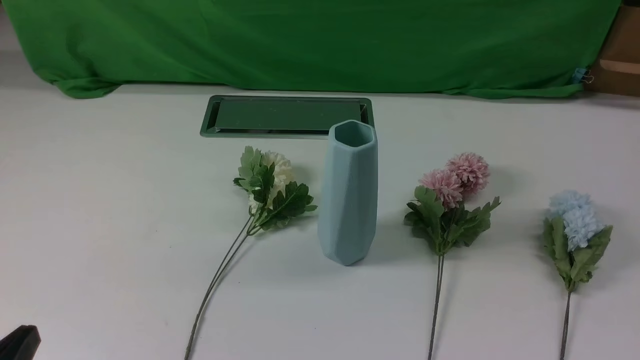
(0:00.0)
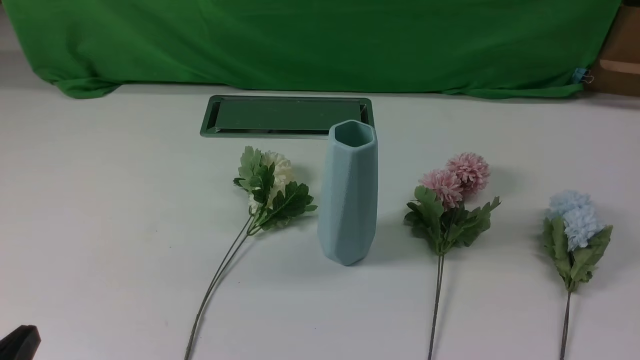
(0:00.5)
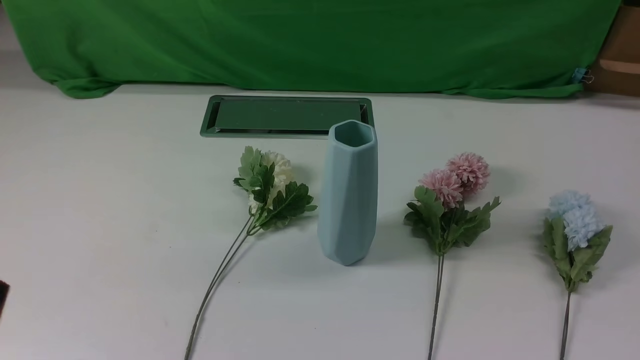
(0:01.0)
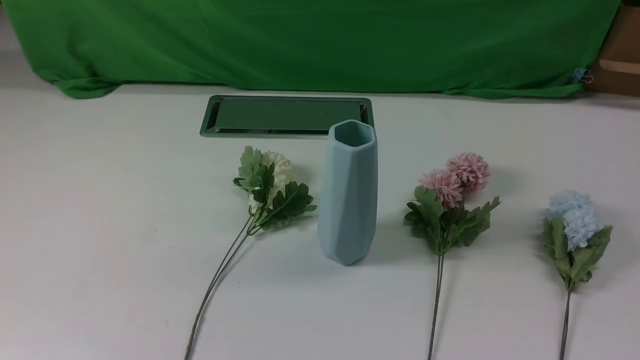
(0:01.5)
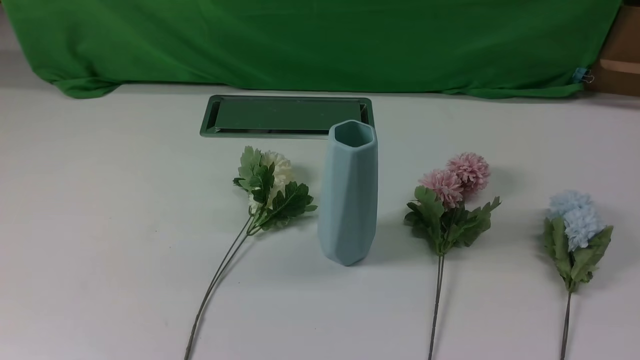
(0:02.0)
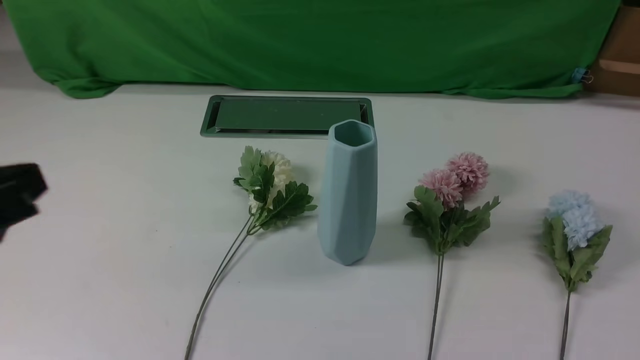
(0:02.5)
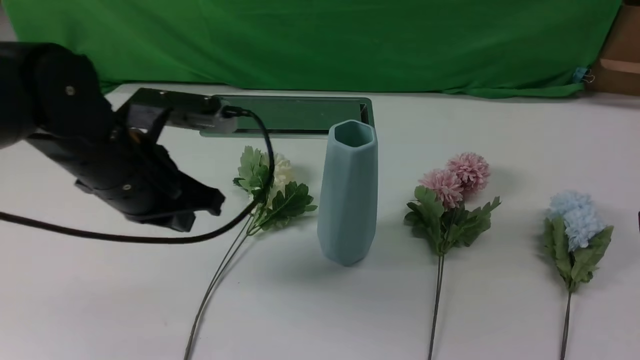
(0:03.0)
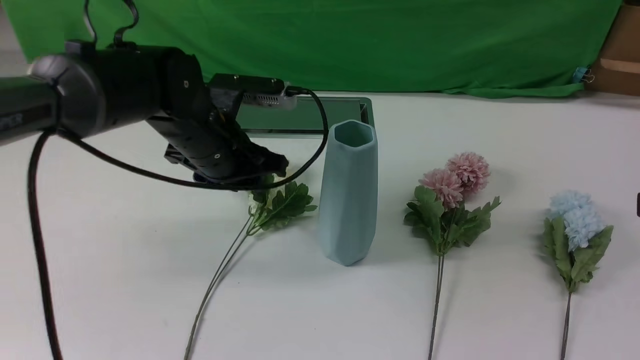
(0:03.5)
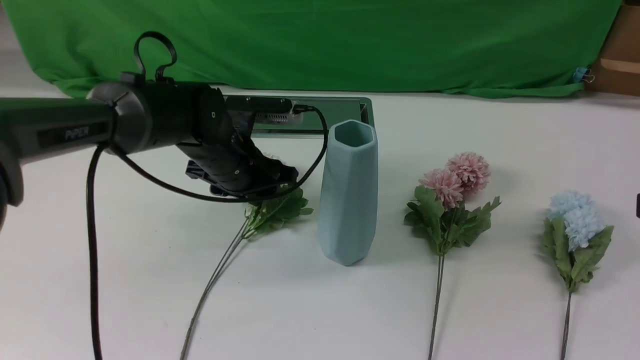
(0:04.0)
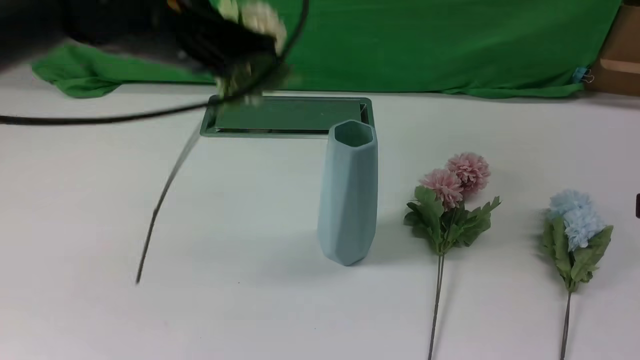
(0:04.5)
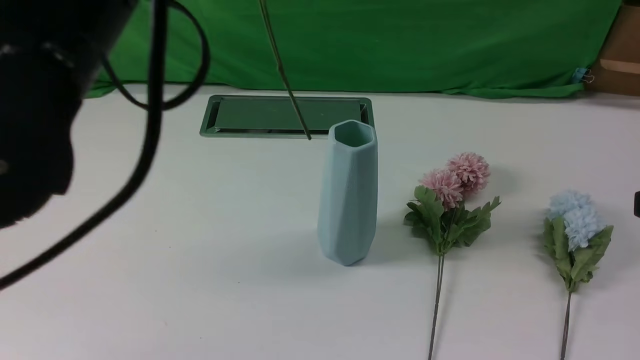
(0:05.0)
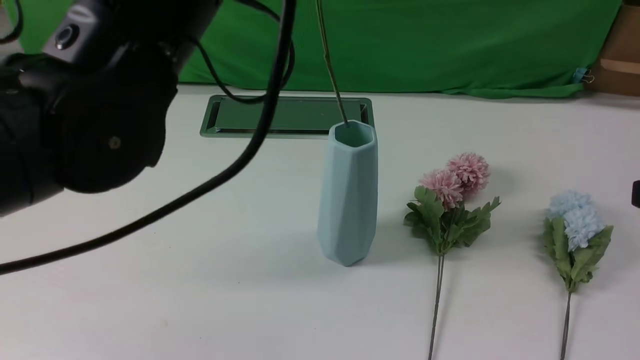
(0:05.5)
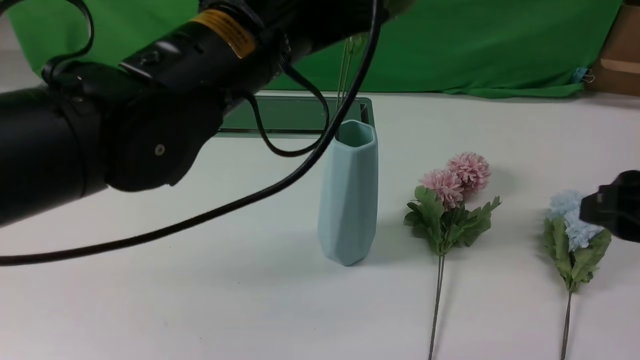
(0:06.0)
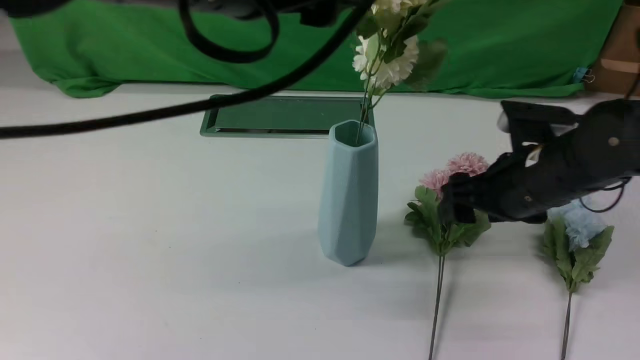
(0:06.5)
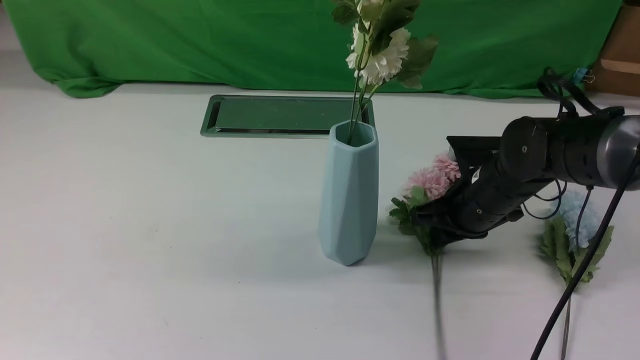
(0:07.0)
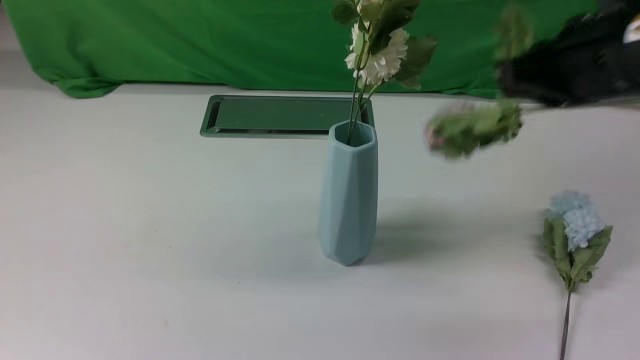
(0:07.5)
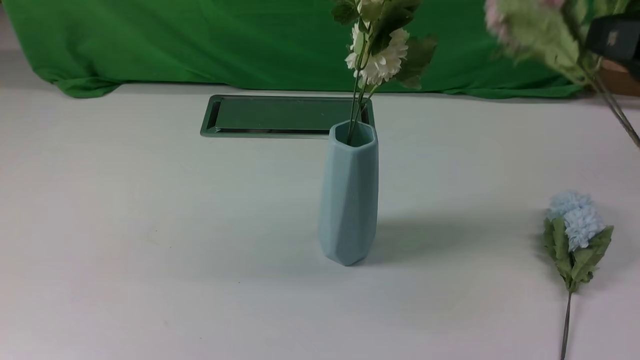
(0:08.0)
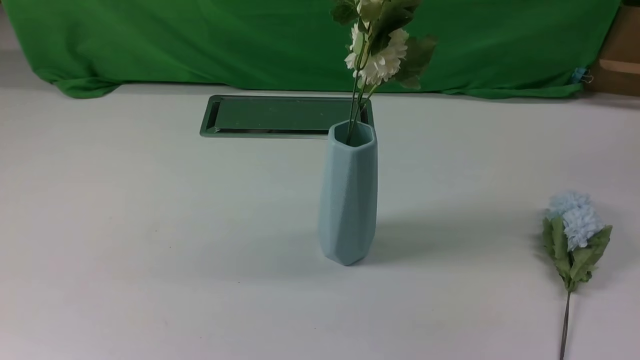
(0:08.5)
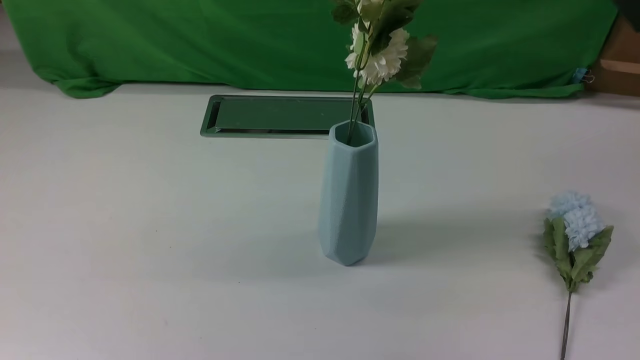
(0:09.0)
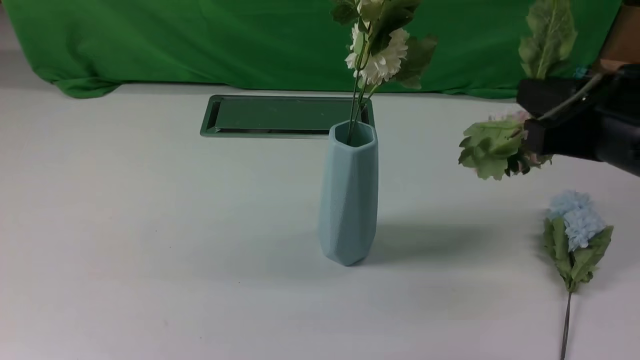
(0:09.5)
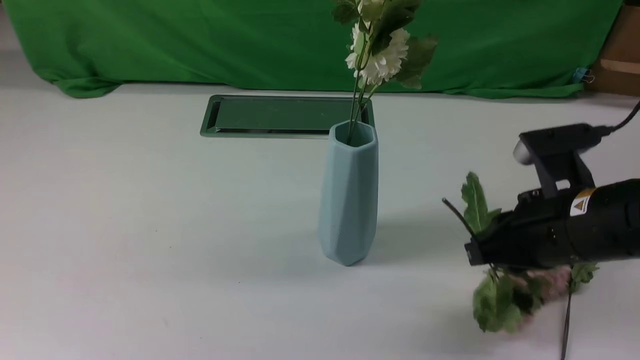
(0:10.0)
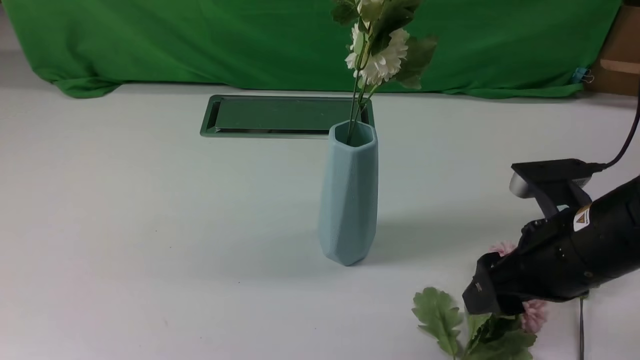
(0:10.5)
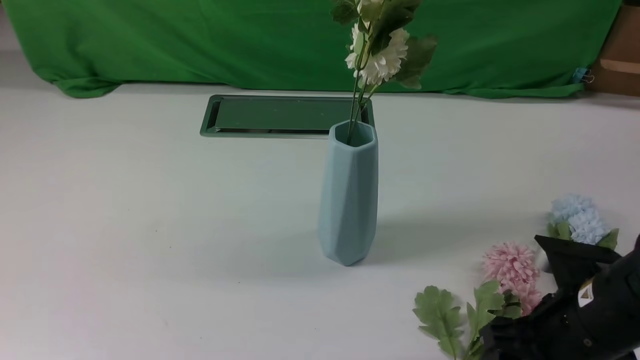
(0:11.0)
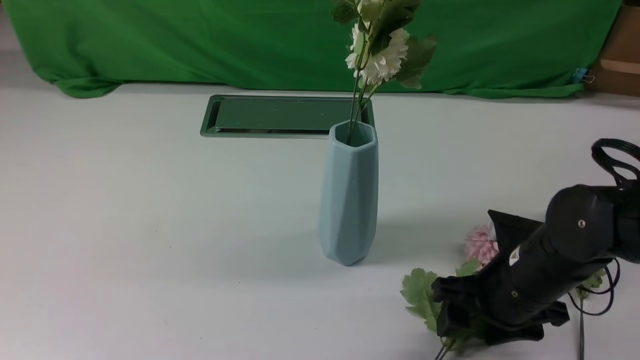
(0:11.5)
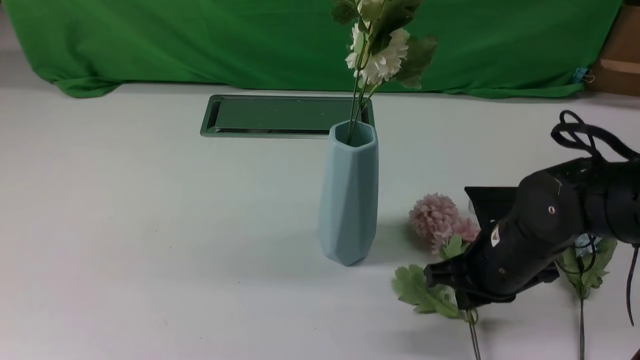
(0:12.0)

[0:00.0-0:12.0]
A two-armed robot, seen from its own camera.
Task of the whole recording: insert the flowers into the vase on the white table.
Step, 0:00.0 to 0:04.0: use the left arm to grab a bunch of fresh flowers.
Step, 0:04.5 to 0:06.0: use the left arm to insert the flowers into the vase.
0:02.0 to 0:04.0: The left gripper shifts some 40 cm forward and to the right, and opens up, while the right gripper is displaced forward and upward by approximately 15 cm.
0:04.0 to 0:06.0: The right gripper moves roughly 5 cm, and opens up; the left gripper shifts roughly 25 cm upward and backward, and closes, then opens again.
0:06.0 to 0:08.0: The left gripper goes some 25 cm backward and to the left, and closes its fingers, while the right gripper shifts some 10 cm upward, and closes.
0:08.0 to 0:10.0: The right gripper is displaced downward by some 20 cm.
0:10.0 to 0:12.0: The right gripper goes approximately 5 cm downward, and opens, then closes once more.

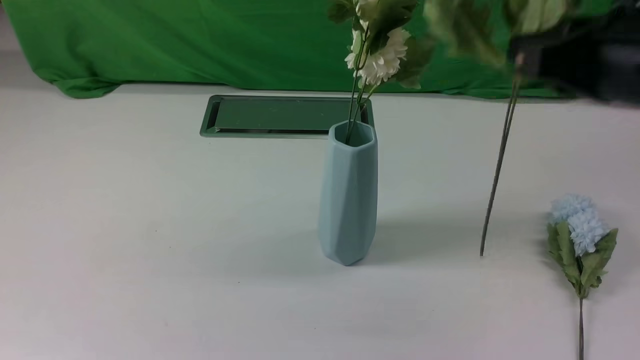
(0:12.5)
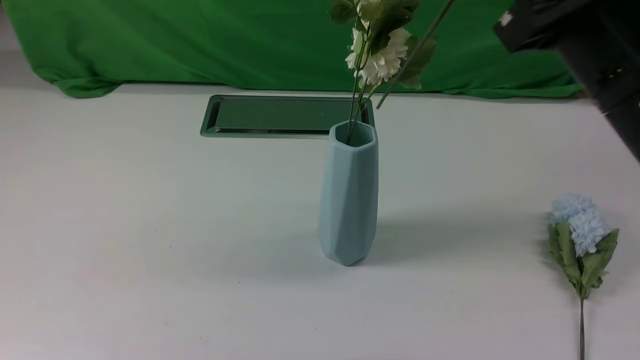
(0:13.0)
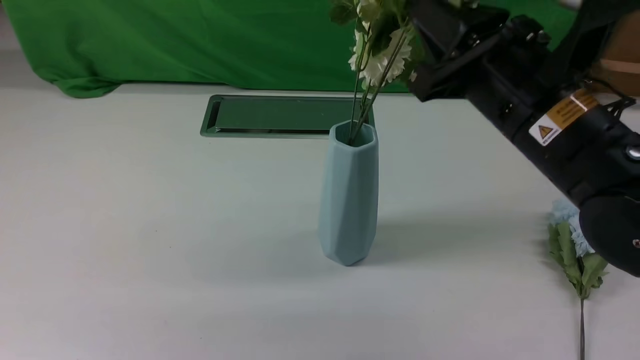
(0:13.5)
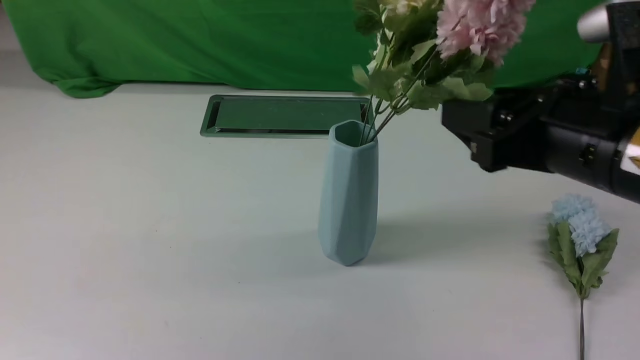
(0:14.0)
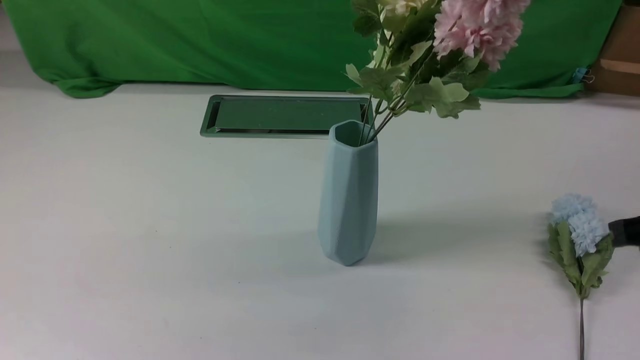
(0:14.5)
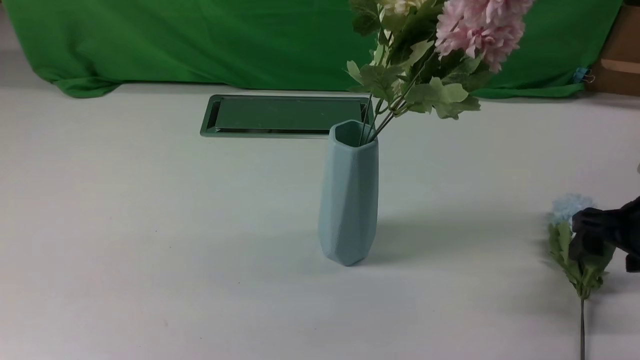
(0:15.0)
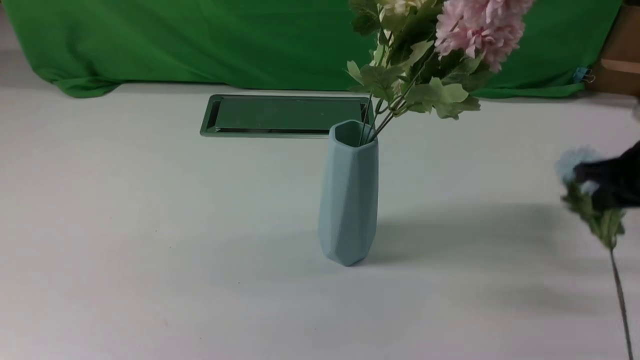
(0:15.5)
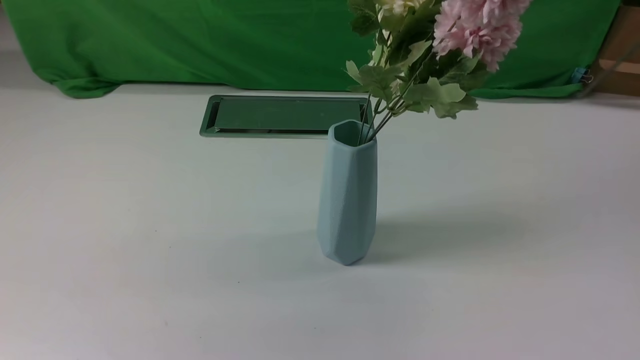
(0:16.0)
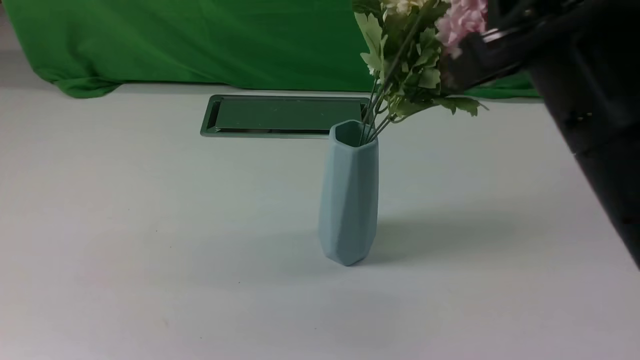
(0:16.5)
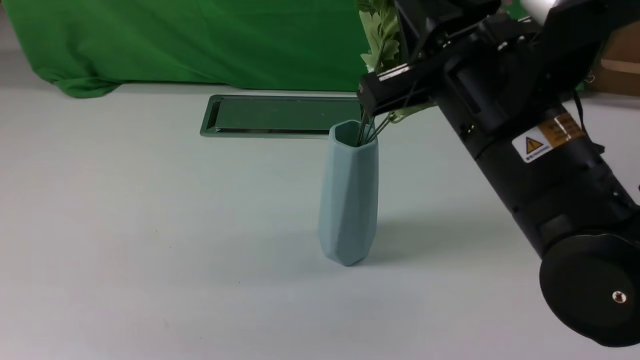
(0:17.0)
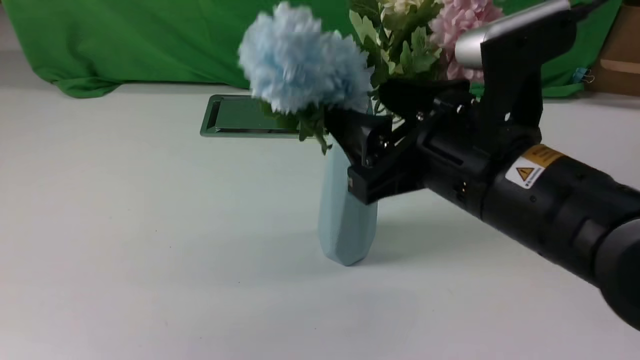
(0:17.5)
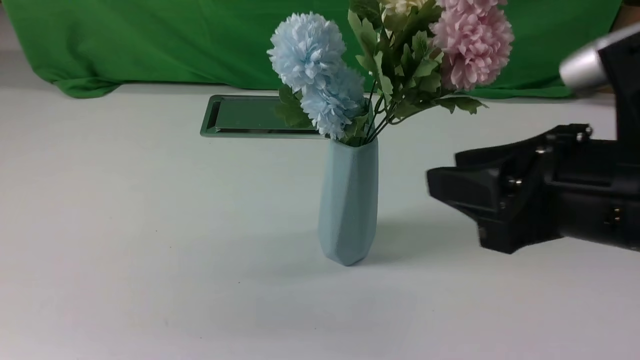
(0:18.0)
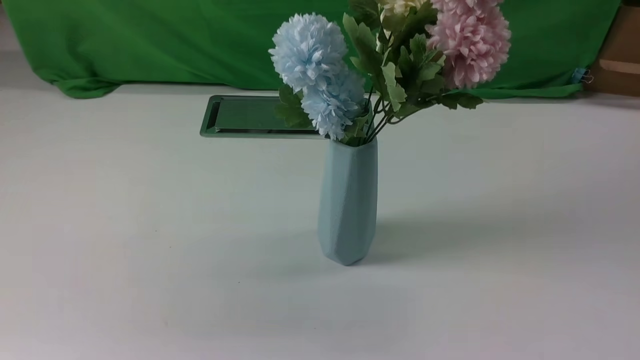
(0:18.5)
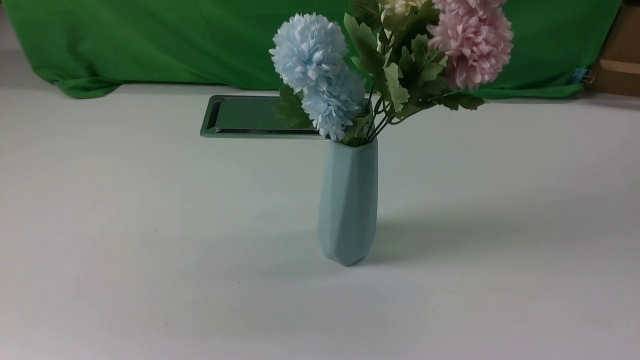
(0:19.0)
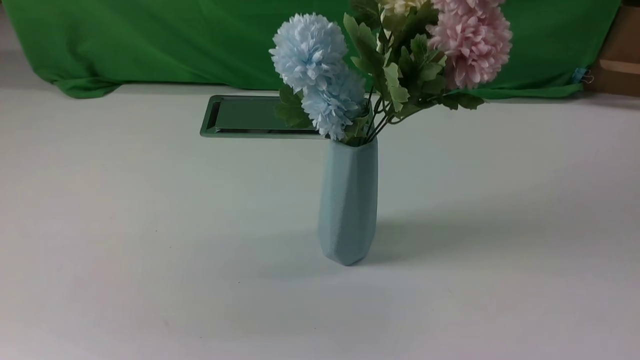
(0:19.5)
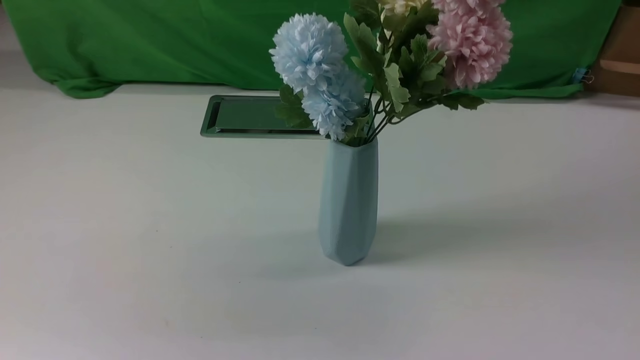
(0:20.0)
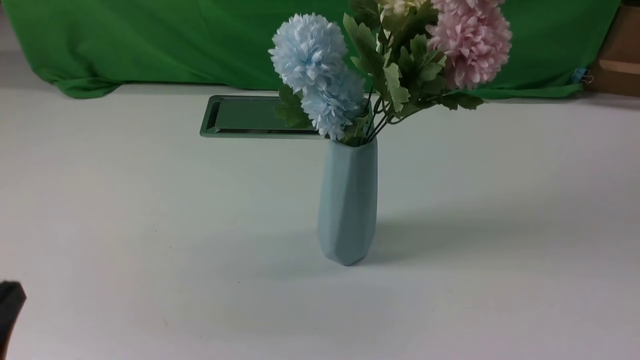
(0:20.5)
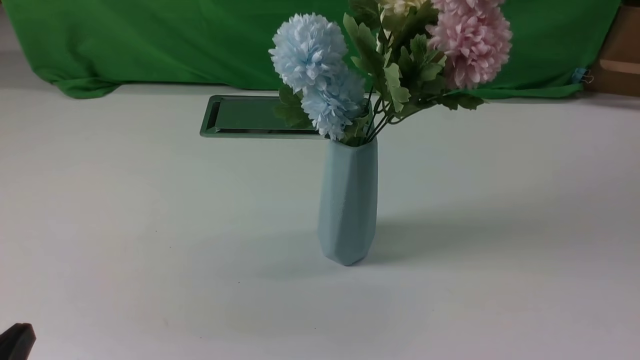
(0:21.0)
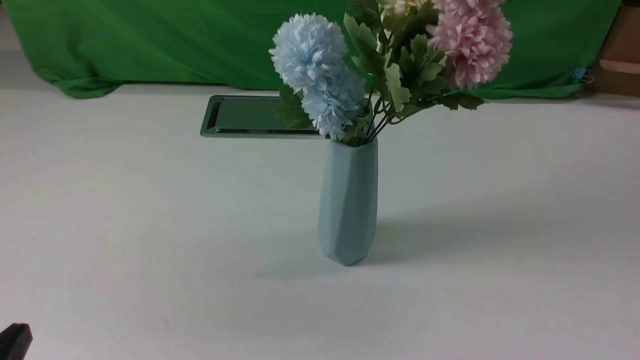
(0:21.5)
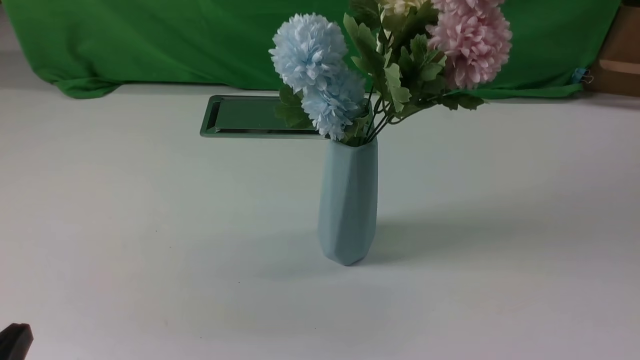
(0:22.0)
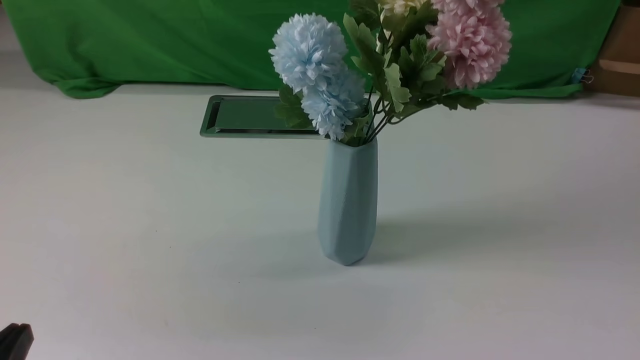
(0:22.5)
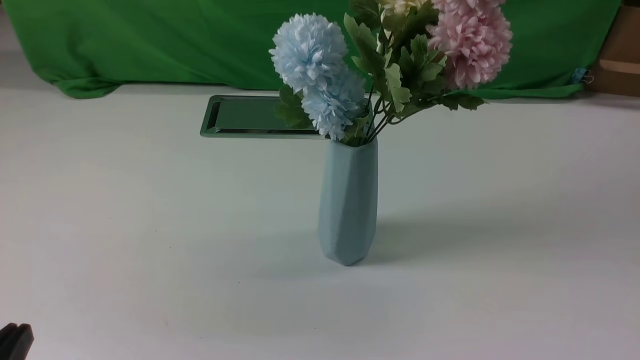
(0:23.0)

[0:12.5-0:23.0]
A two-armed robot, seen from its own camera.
Task of the whole recording: insert the flowers into the vase on the white table.
Step, 0:12.5 to 0:14.0: use the right arm to insert the flowers into the vase.
Step, 0:14.5 to 0:15.0: use the right arm to grab a bunch of fresh flowers.
Step, 0:15.5 to 0:17.5: use the right arm to insert the flowers into the vase.
0:12.5 to 0:14.5: The right gripper shifts about 10 cm downward and to the right, and opens, then closes again.
0:14.5 to 0:16.5: The right gripper goes up and down, some 25 cm each way, reversing 2 times, and opens and closes again.
0:16.5 to 0:19.0: The right gripper is displaced backward and to the right by about 25 cm, and opens, then closes again.
